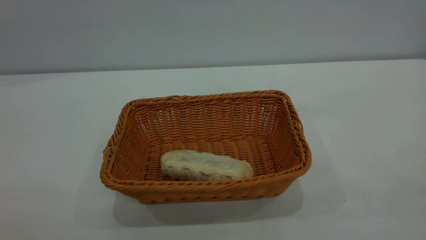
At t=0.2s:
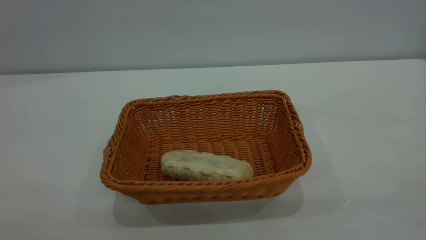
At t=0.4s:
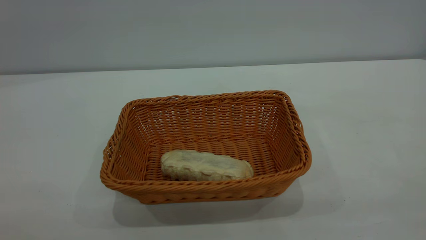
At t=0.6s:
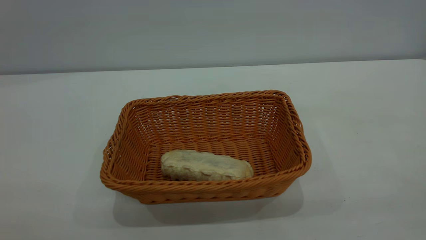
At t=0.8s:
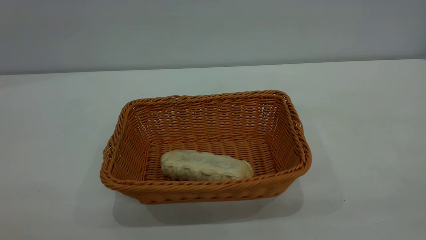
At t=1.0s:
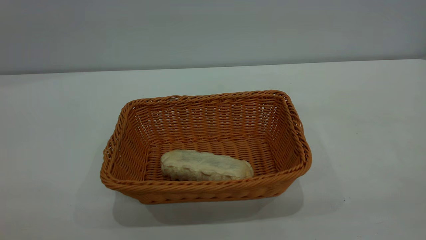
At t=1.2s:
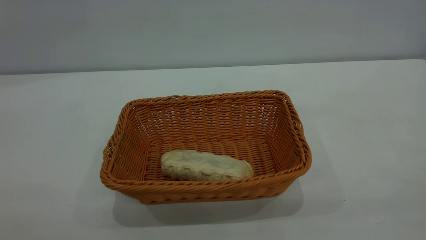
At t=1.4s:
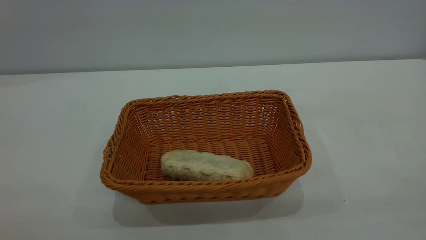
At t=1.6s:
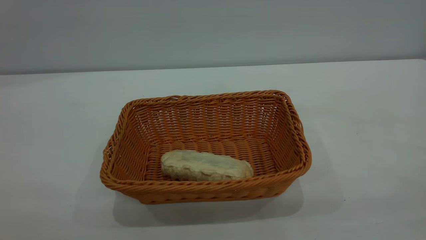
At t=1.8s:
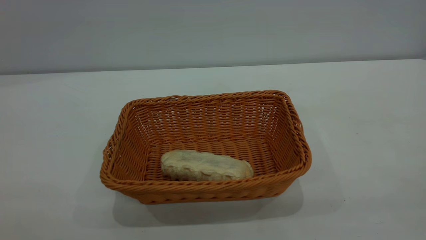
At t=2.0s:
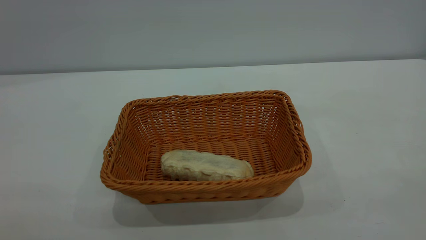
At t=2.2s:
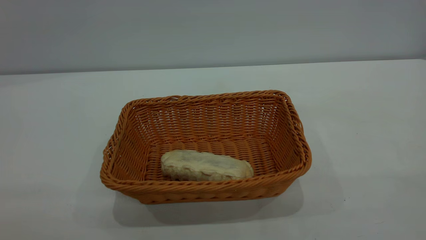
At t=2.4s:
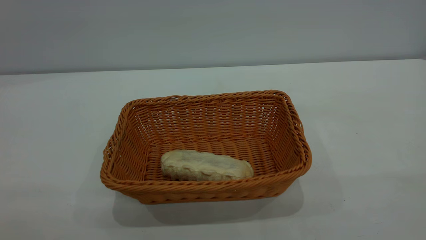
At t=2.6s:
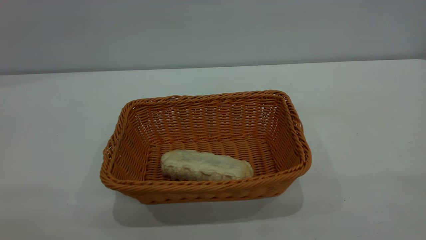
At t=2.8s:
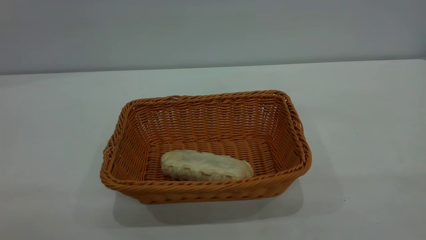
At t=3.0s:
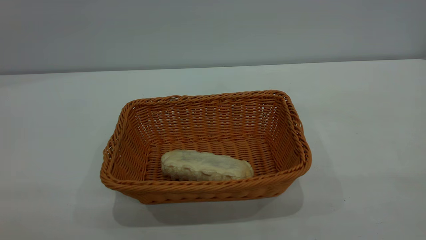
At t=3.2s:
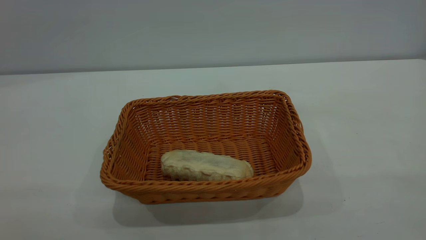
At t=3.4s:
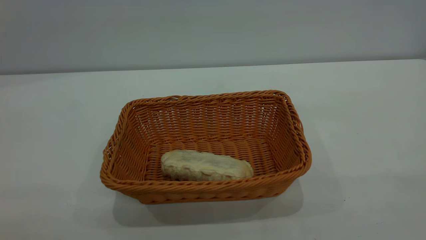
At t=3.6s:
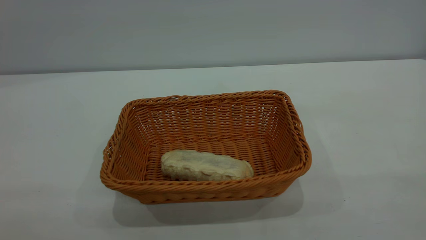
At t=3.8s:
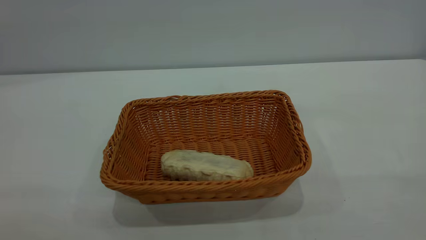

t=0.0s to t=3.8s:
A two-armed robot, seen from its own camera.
Task of the whole recording: One hand grasps the yellow basket and places it in the middle of the table, while the other hand picks up the long bread and puts it into the yellow basket.
t=2.6s to t=3.8s: Neither gripper changes place.
